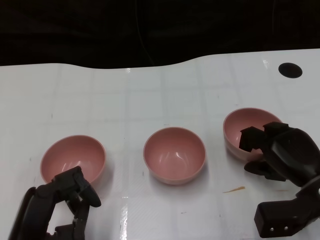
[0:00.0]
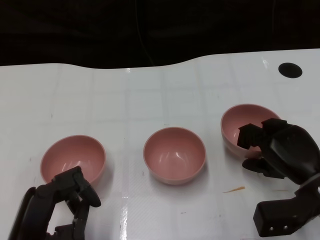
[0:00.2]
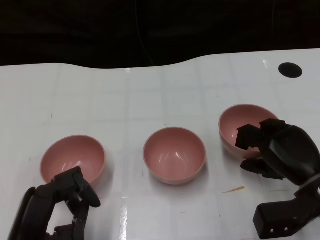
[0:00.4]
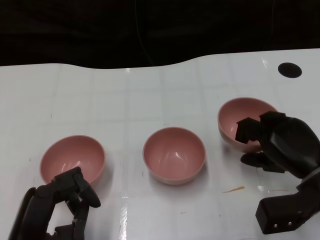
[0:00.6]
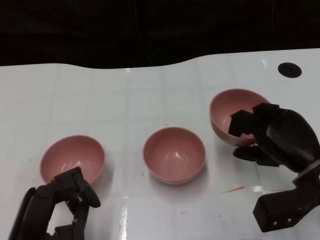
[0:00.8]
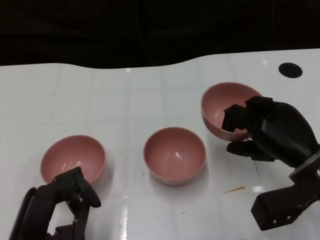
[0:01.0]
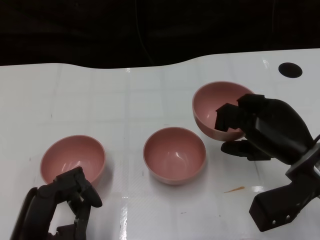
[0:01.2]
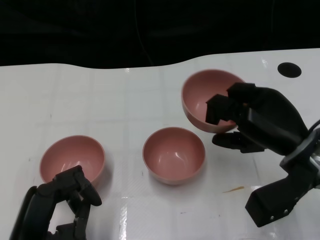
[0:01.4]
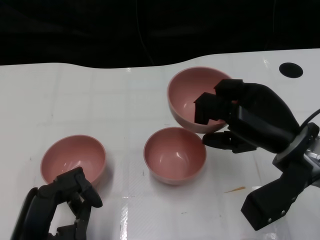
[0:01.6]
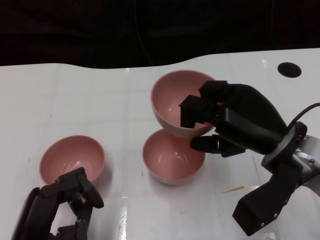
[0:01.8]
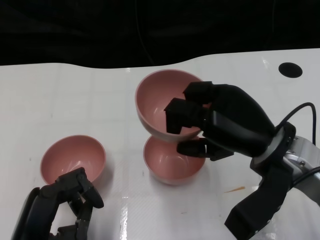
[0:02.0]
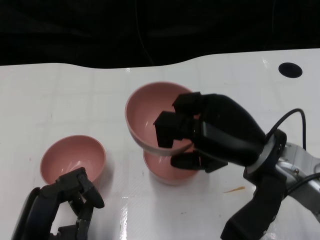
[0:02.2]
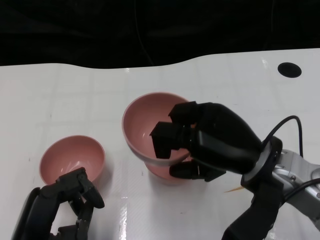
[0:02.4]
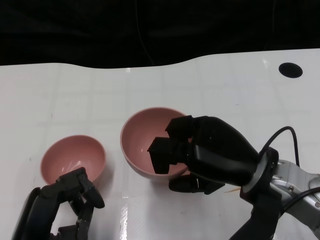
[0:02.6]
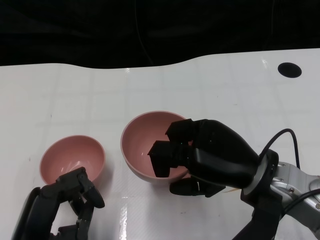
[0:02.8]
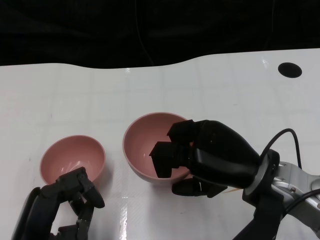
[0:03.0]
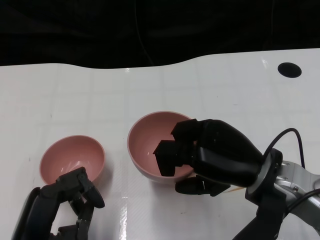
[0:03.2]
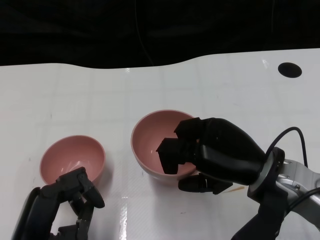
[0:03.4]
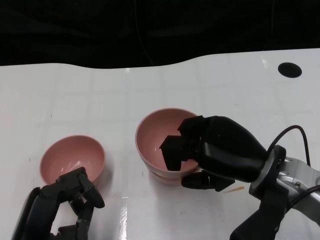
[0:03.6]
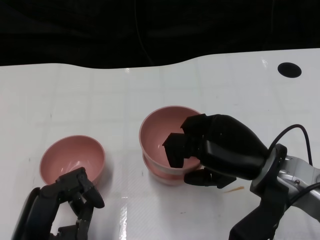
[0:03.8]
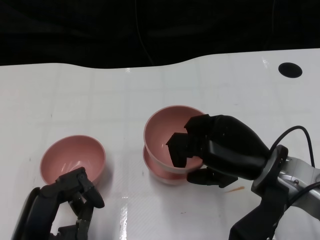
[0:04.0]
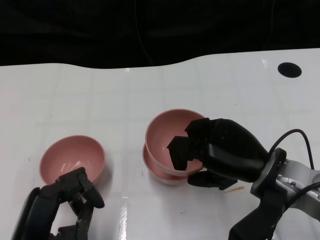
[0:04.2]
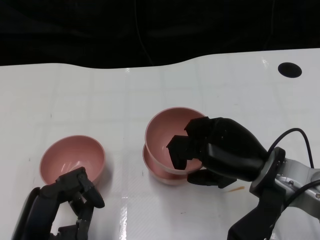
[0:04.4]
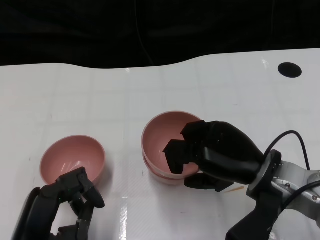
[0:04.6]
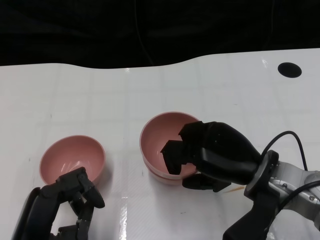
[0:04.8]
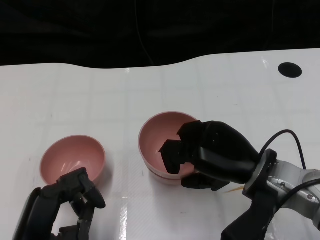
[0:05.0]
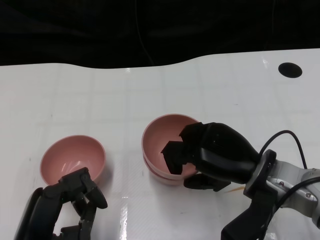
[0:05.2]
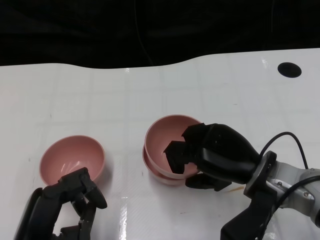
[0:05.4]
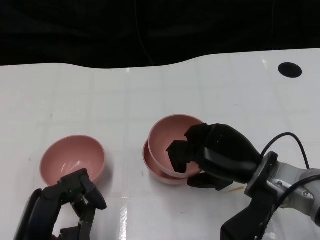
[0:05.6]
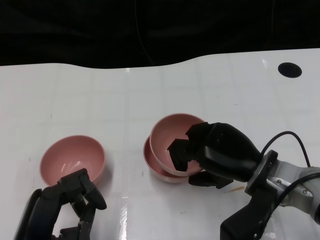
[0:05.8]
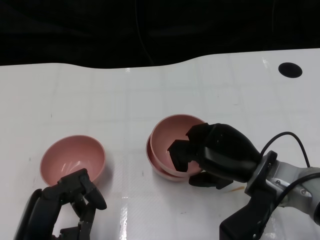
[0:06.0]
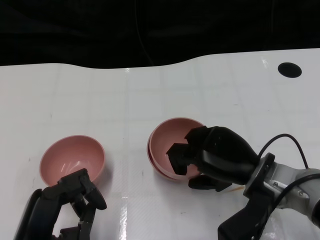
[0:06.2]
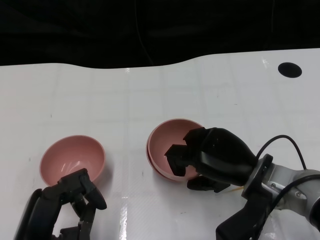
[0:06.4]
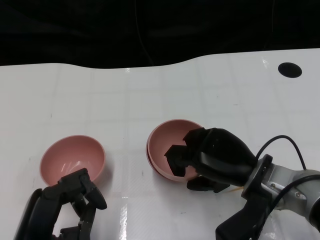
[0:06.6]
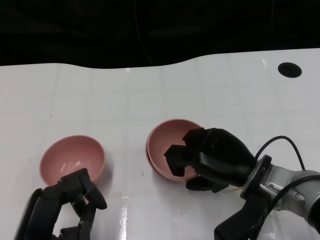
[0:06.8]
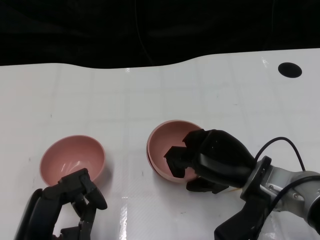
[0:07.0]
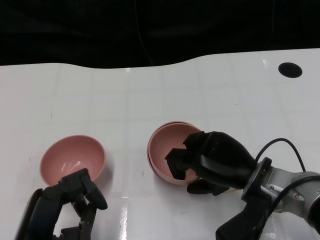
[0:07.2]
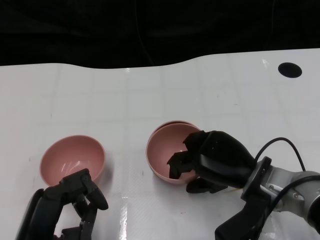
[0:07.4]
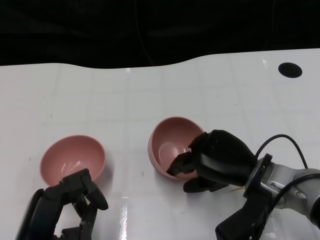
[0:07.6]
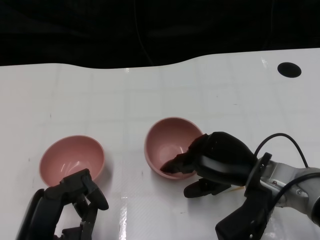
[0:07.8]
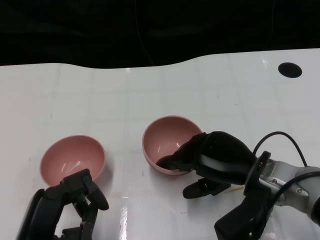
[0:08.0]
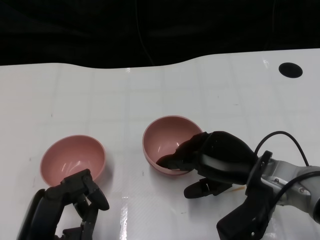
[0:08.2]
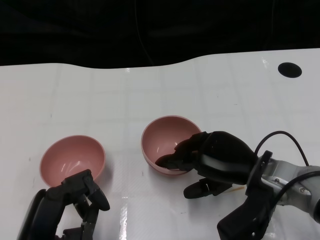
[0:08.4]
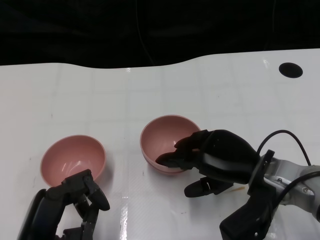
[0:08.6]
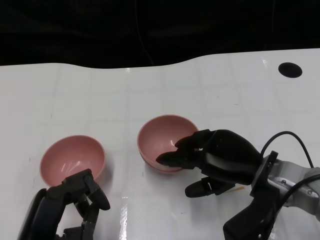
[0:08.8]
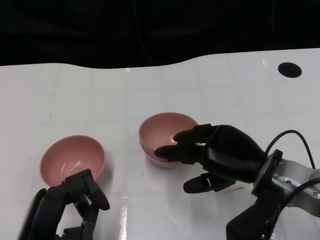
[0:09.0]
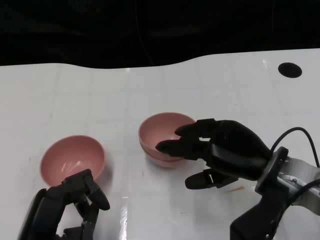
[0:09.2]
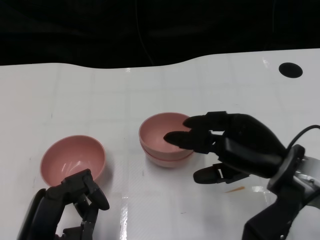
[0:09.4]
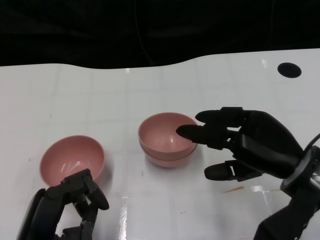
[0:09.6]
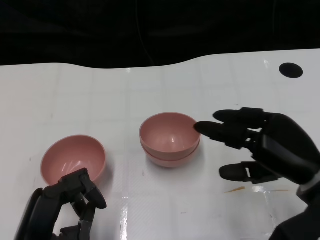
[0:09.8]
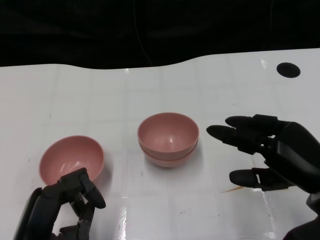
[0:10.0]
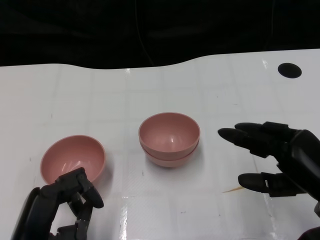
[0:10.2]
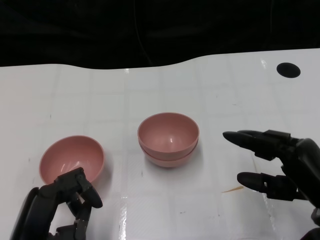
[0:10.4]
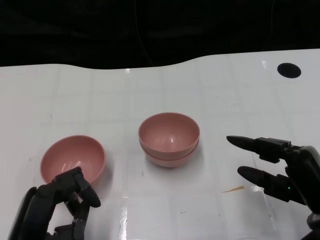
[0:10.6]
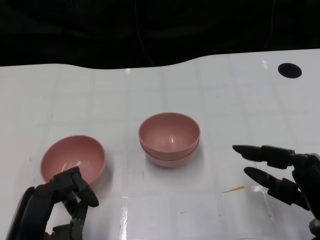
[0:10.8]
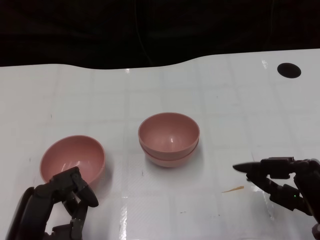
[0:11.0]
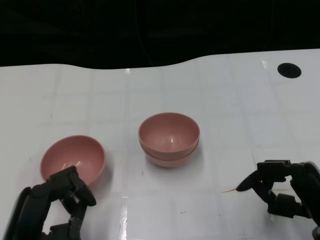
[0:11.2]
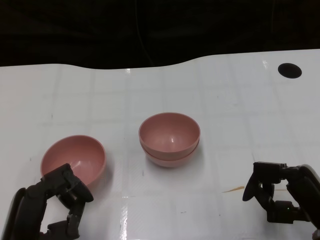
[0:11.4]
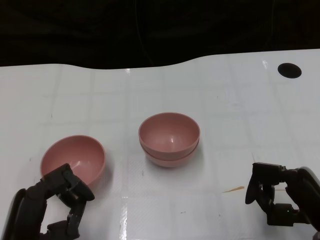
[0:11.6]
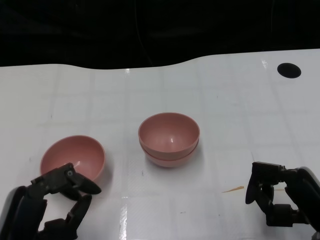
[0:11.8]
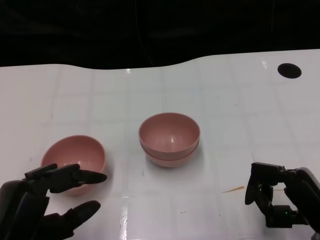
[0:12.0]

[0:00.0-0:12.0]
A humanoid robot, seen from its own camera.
Task of the whole recording: Pick up the bowl on one side of the table and place it on top of the middle bowl, then pick up the bowl on the other side of the table and place it on top of the middle bowls.
Step, 0:00.0 to 0:09.6: Place the bowl on the right onto the bowl in the middle with right gripper.
0:00.0 to 0:01.6: The right hand heads upward, covering approximately 10 cm.
0:01.6 to 0:03.0: The right hand moves about 5 cm.
0:03.0 to 0:06.0: There are only small adjustments of the hands.
0:06.0 to 0:09.0: There are only small adjustments of the hands.
0:09.0 to 0:10.4: The right hand travels to the right and backward by roughly 10 cm.
0:10.4 to 0:12.0: The hands make only small movements.

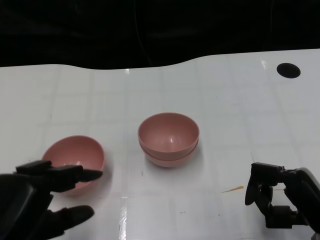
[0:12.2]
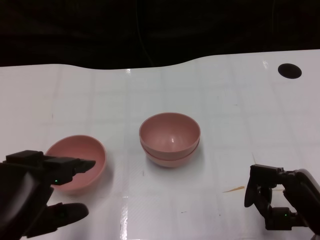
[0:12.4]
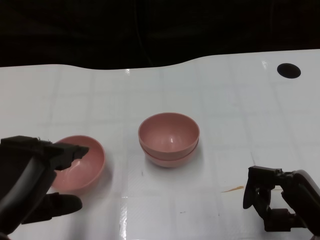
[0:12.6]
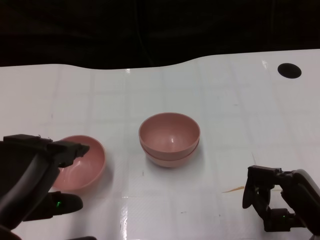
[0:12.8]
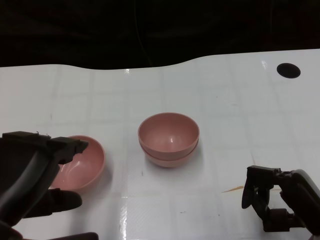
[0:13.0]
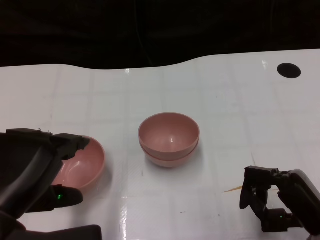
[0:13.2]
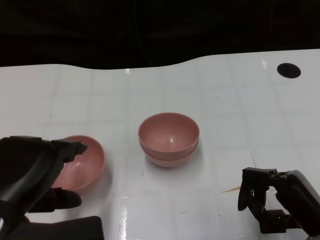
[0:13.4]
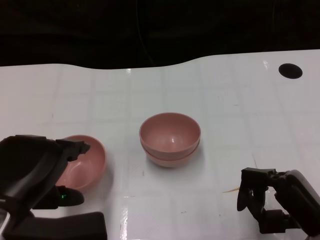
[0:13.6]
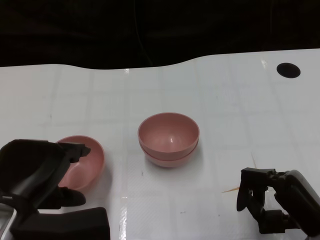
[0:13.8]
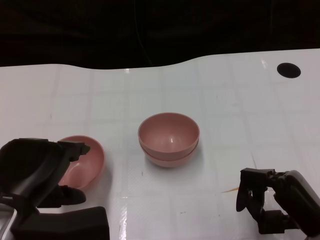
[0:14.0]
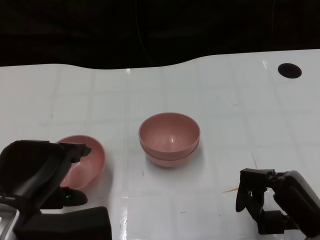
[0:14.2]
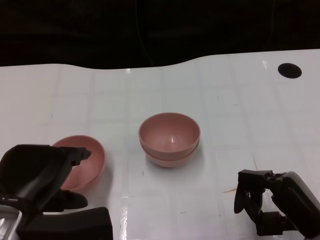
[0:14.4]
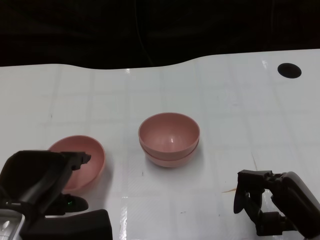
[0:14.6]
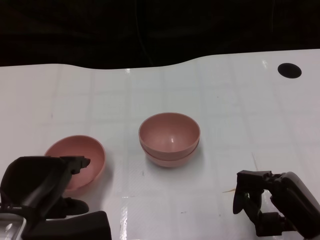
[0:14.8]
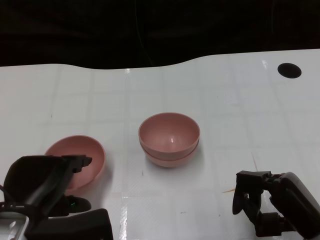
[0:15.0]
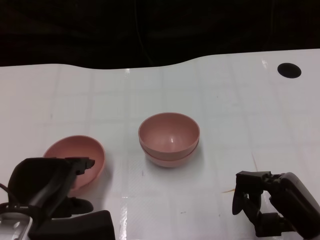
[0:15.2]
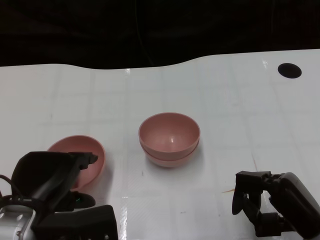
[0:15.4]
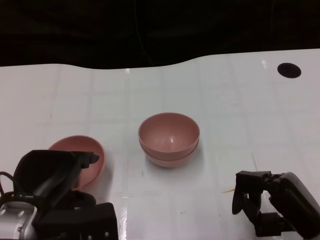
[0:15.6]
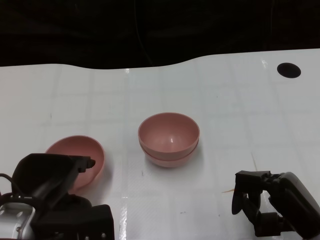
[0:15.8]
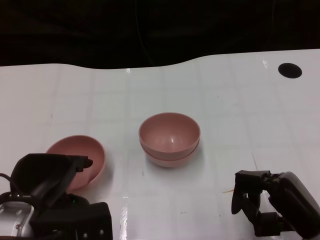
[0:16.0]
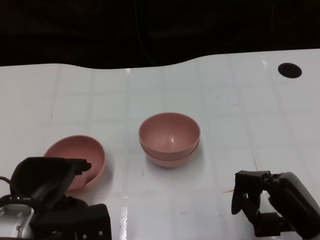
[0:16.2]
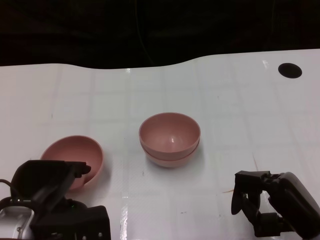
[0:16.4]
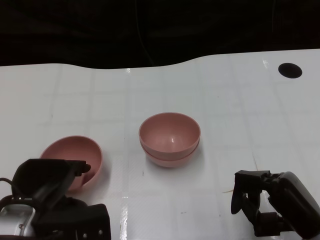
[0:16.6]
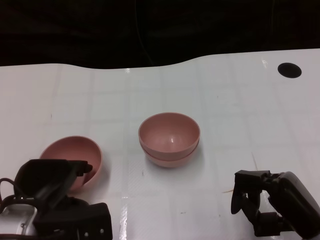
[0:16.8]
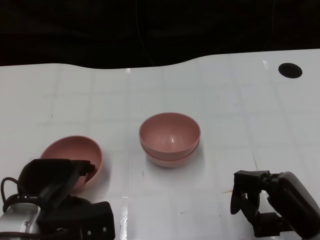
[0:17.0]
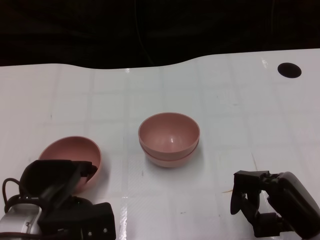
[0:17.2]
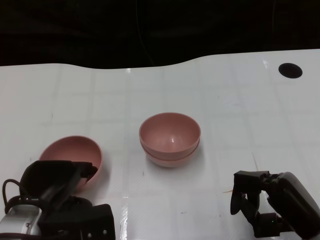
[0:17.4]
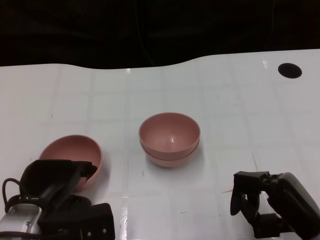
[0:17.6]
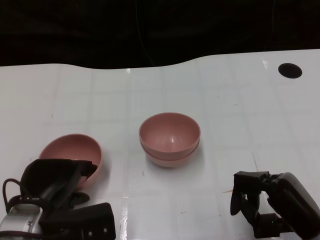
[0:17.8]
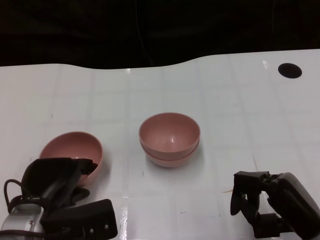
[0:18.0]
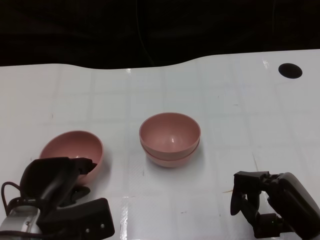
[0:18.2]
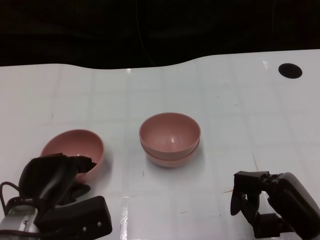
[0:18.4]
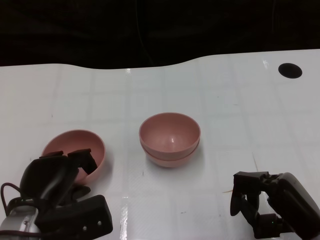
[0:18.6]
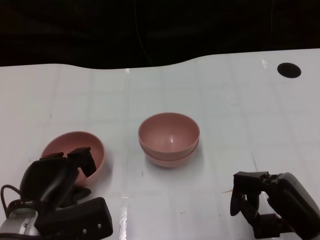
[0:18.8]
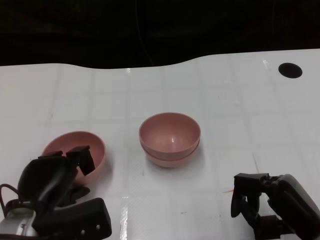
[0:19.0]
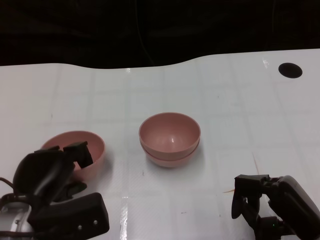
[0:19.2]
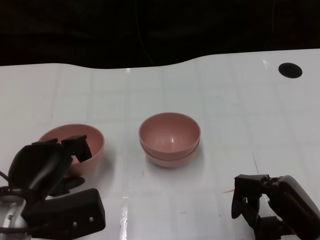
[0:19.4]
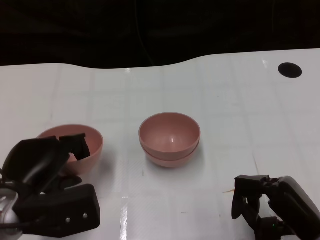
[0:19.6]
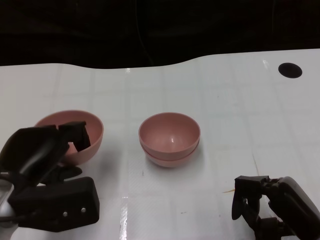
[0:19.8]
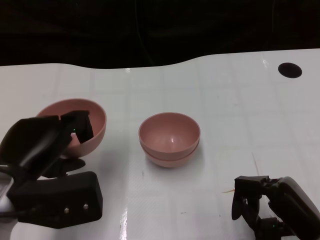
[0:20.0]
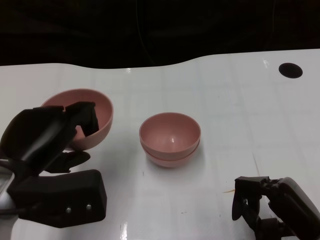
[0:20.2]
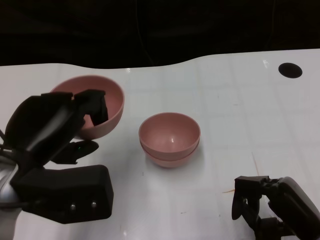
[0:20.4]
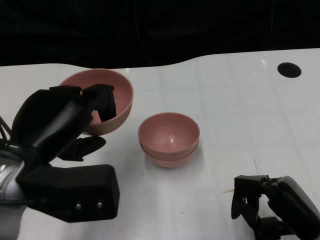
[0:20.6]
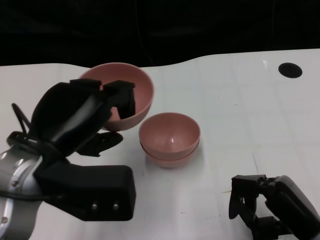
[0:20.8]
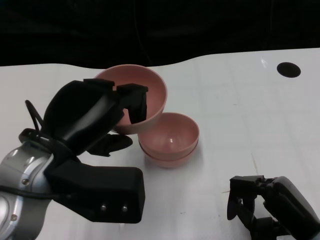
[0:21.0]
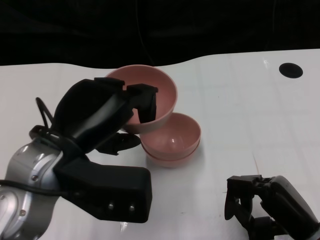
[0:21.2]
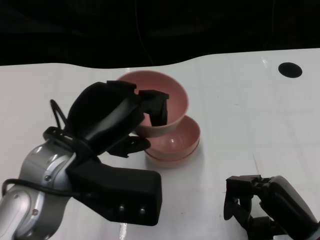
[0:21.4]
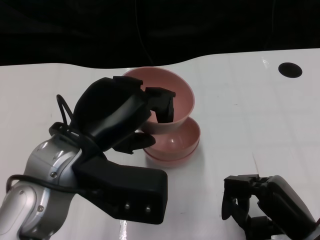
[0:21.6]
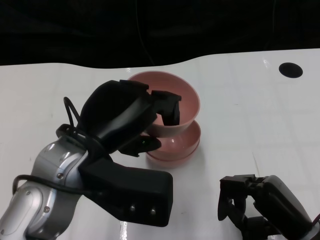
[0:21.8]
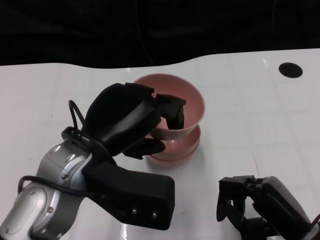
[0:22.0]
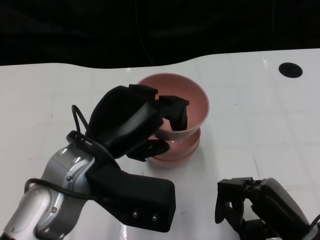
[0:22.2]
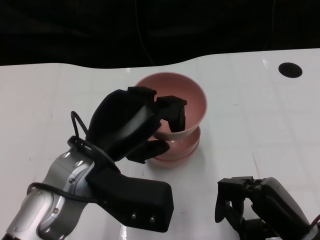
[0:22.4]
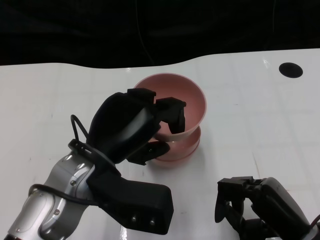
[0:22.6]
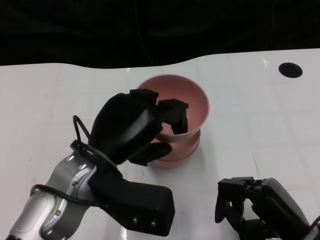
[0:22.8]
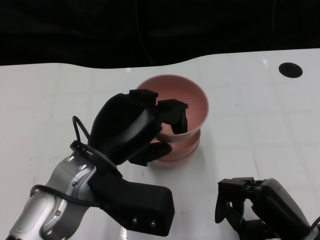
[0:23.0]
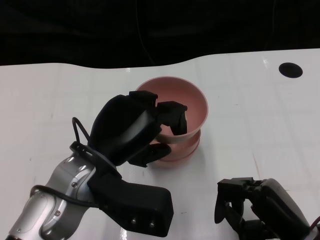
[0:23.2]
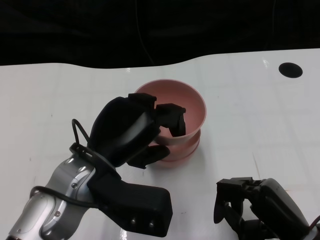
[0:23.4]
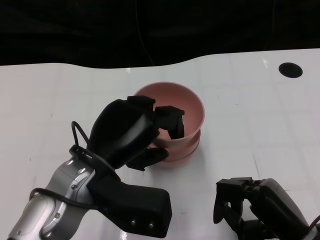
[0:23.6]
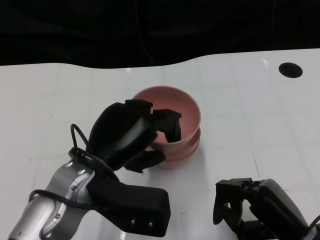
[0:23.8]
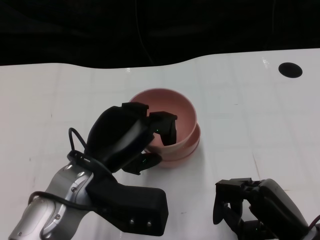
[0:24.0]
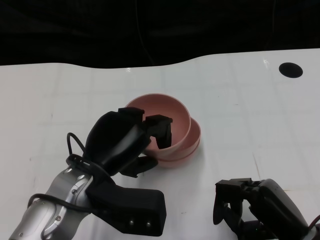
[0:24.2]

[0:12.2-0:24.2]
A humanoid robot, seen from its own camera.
Task of the whole recording: Pick up the bowl on one side of the table and place it on top of the middle bowl, then pick up the bowl on the other side of the table and place it on top of the middle bowls.
Step, 0:12.2 to 0:19.2: Grasp the bowl on the left with the left gripper.
0:12.2 to 0:13.8: The left hand changes place by approximately 5 cm.
0:13.8 to 0:15.2: The left hand heads downward, covering approximately 5 cm.
0:15.2 to 0:18.2: The hands make only small movements.
0:18.2 to 0:19.8: The left hand goes roughly 5 cm upward.
0:19.8 to 0:21.2: The left hand shifts roughly 10 cm upward and to the right.
0:21.2 to 0:22.6: The left hand ends up approximately 5 cm from where it was.
0:22.6 to 0:24.2: There are only small adjustments of the hands.
